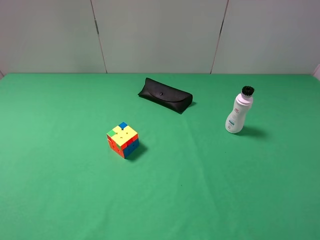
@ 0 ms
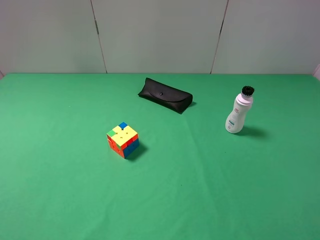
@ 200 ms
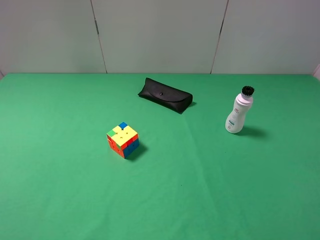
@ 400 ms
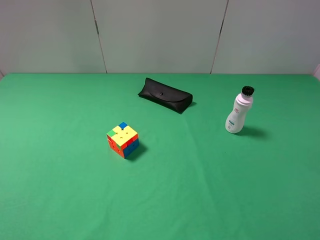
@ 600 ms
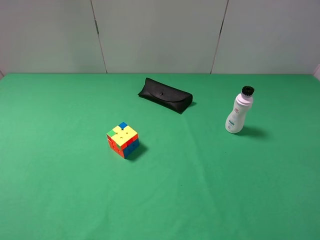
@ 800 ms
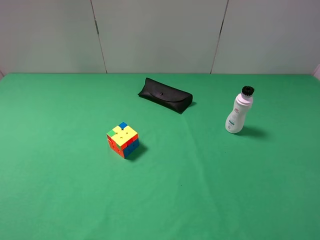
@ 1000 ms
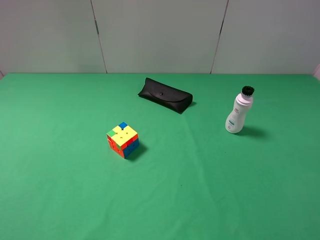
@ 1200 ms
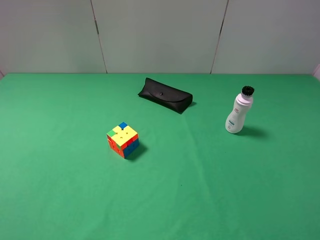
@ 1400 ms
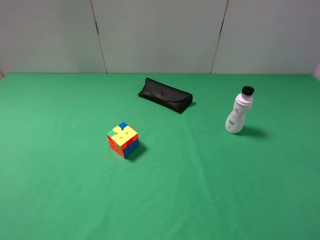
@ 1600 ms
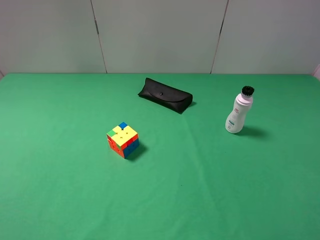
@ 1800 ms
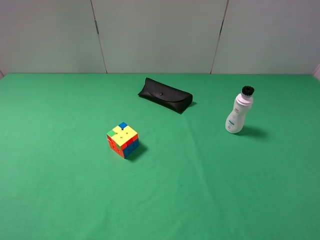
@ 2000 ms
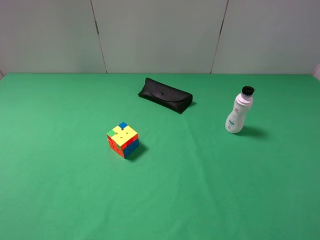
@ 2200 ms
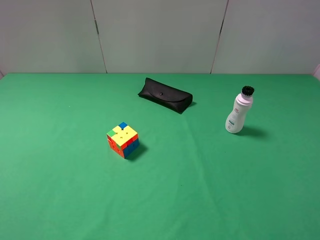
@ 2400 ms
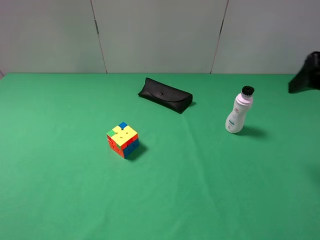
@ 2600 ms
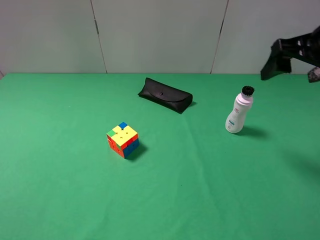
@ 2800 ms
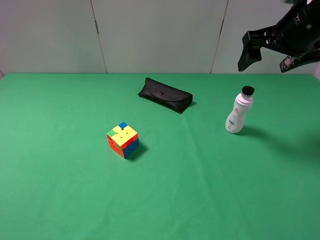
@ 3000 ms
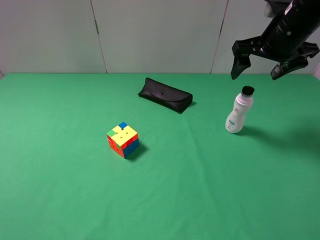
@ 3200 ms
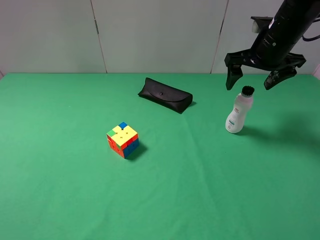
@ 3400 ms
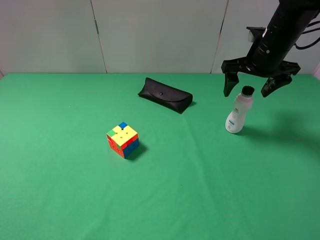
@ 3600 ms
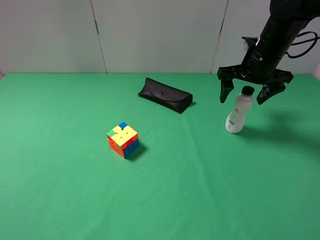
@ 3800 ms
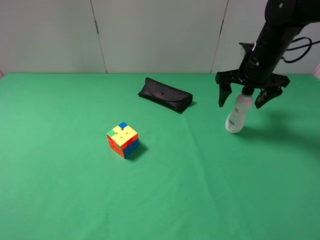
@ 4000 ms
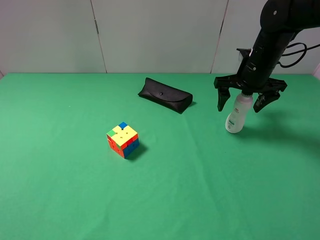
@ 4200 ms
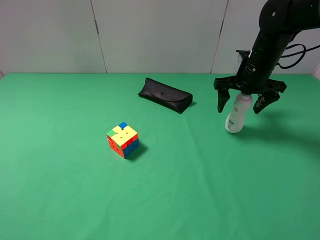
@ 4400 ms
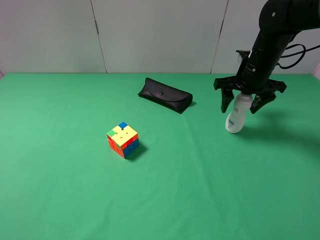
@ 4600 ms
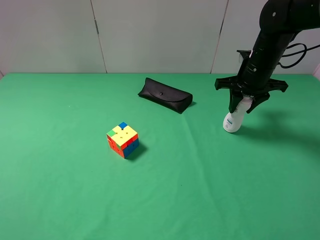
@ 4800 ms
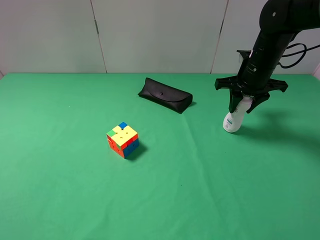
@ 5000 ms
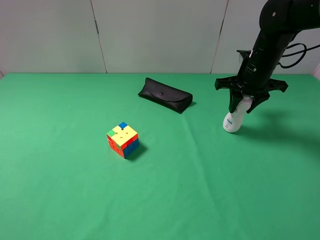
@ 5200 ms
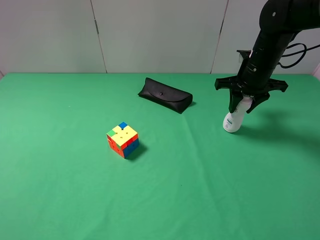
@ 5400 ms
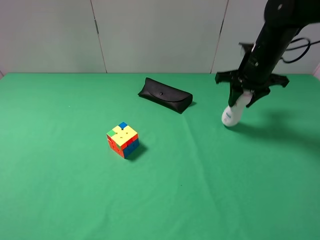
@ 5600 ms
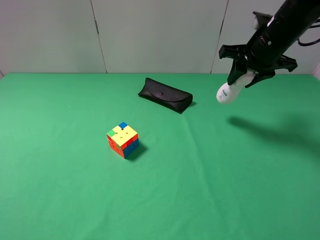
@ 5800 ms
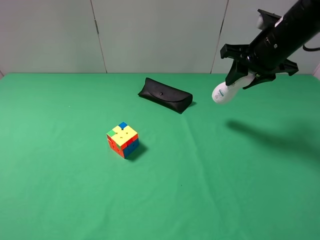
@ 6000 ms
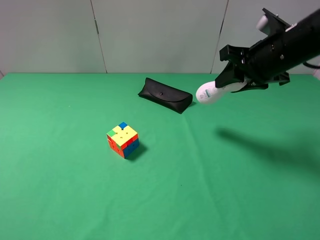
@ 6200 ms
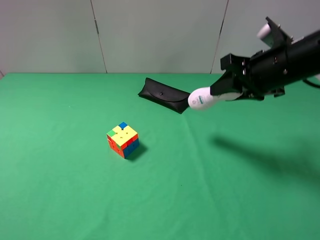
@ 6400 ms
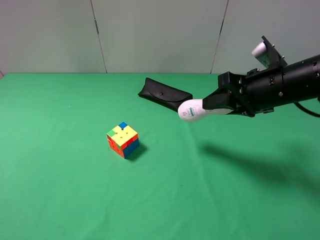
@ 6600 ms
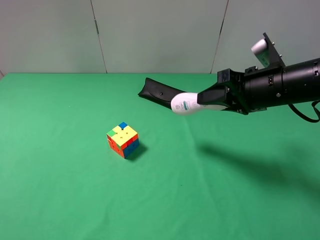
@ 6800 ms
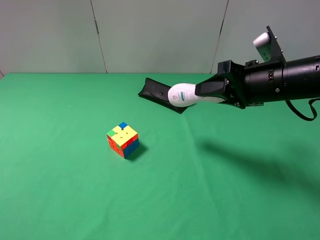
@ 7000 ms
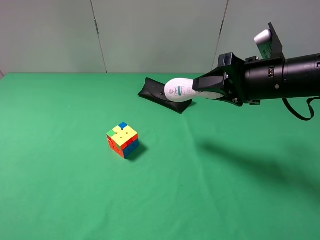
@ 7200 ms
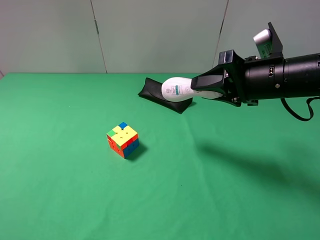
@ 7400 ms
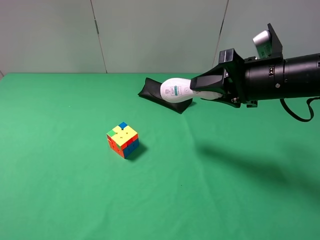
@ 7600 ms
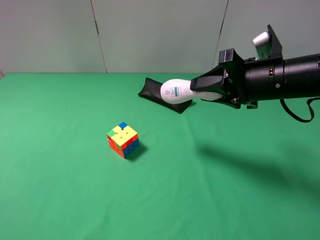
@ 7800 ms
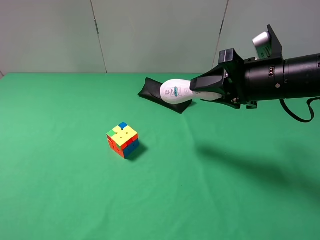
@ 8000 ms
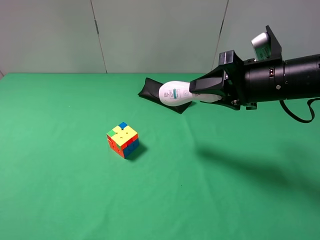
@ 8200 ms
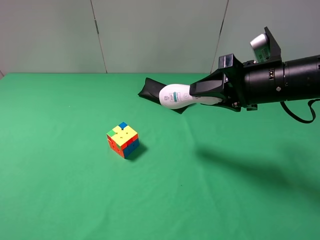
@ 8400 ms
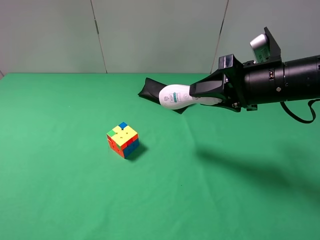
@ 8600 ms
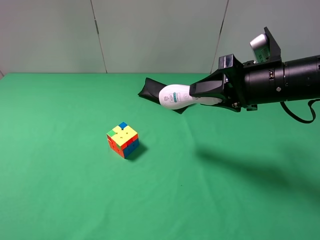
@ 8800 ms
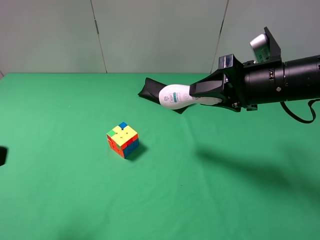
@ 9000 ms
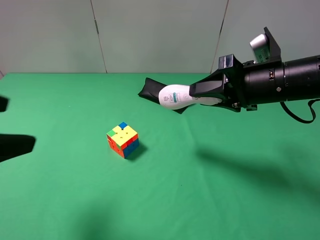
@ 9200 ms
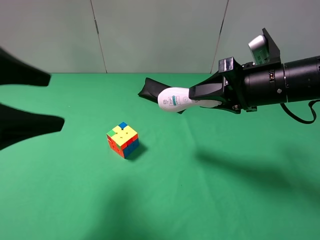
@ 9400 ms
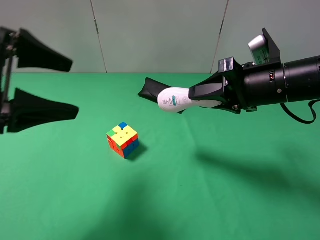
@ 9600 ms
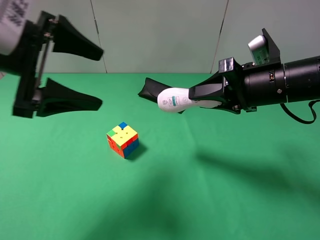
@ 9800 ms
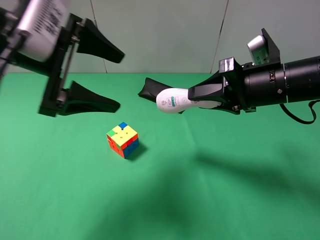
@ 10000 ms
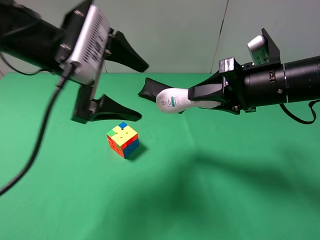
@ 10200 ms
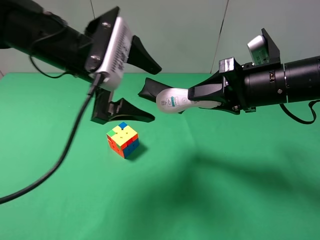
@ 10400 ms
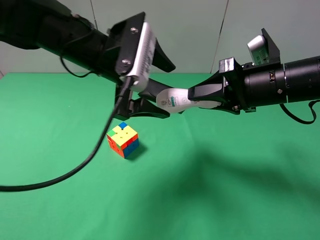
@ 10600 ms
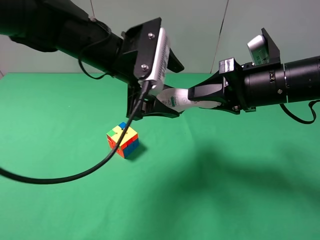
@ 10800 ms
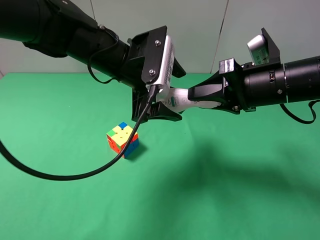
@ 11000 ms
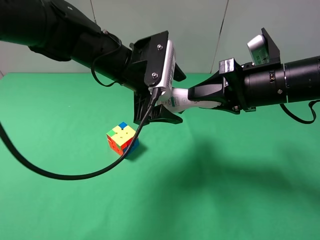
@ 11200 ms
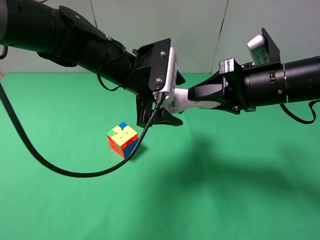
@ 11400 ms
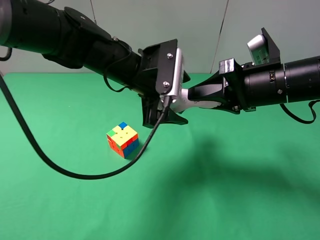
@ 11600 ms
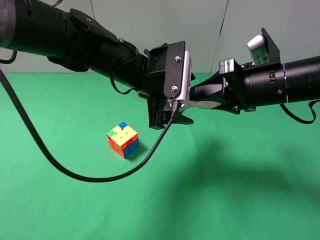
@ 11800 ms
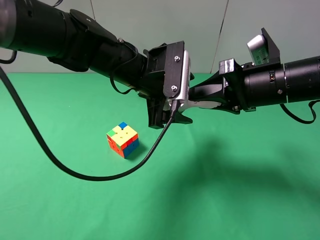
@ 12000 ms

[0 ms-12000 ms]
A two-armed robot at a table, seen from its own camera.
Task of the whole recording: use the right gripper to pick up the item and transfer it from the right gripper to the left gripper.
0 ms to 1600 ms: Both grippers stay put.
1600 ms to 3000 ms: The right gripper moves forward, about 30 cm.
3000 ms to 4400 ms: The right gripper heads downward and forward, covering some 10 cm.
4400 ms to 6000 ms: The right gripper moves upward and backward, approximately 10 cm, and closes its fingers.
6000 ms to 7600 ms: The right gripper travels backward by approximately 10 cm.
7600 ms to 9000 ms: The left gripper goes roughly 10 cm forward.
9000 ms to 10400 ms: The left gripper heads forward and to the right, covering roughly 25 cm.
10400 ms to 12000 ms: The left gripper shifts roughly 5 cm to the right.

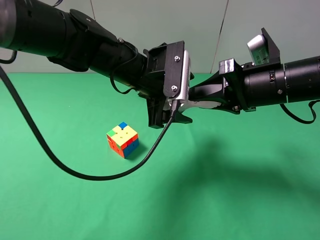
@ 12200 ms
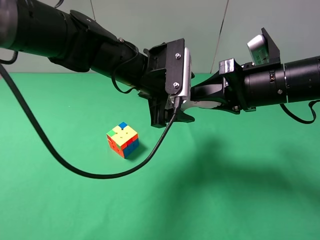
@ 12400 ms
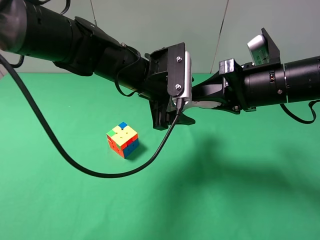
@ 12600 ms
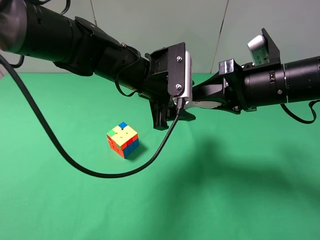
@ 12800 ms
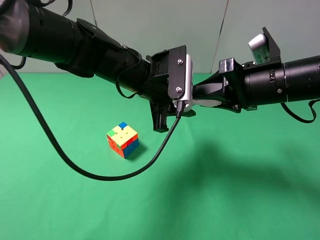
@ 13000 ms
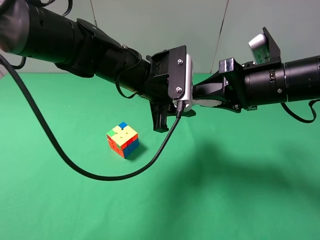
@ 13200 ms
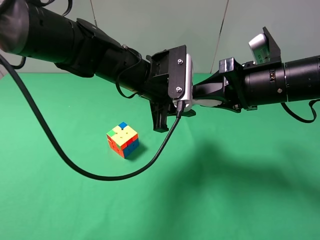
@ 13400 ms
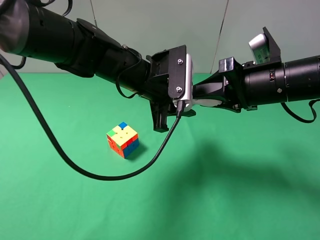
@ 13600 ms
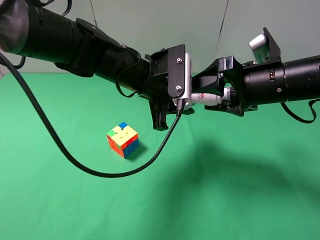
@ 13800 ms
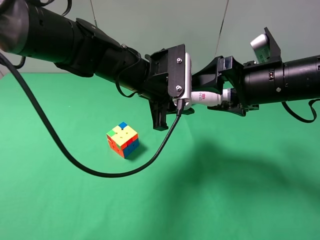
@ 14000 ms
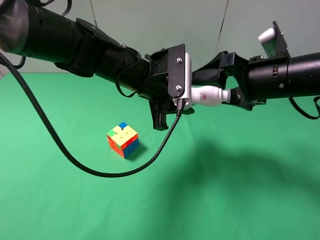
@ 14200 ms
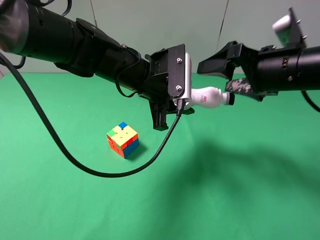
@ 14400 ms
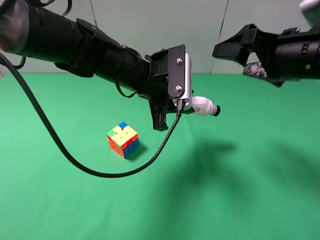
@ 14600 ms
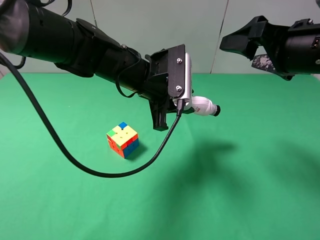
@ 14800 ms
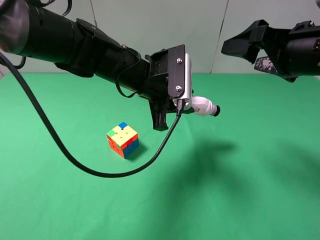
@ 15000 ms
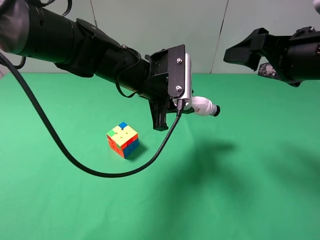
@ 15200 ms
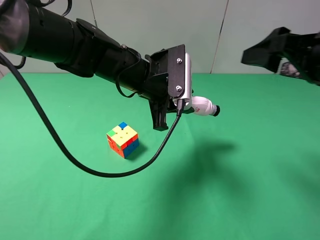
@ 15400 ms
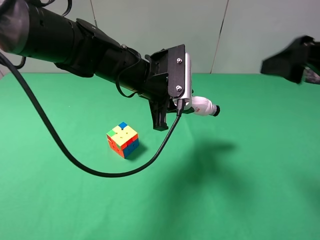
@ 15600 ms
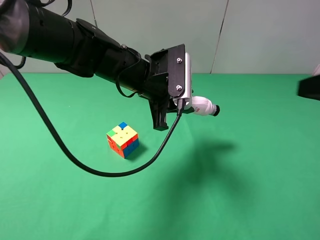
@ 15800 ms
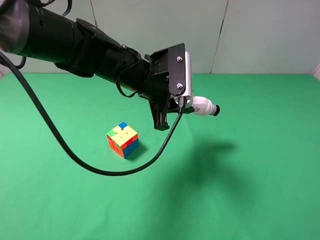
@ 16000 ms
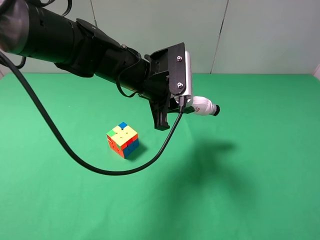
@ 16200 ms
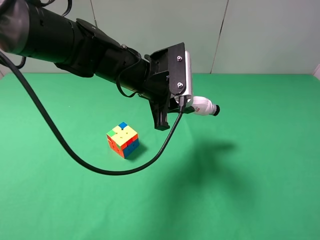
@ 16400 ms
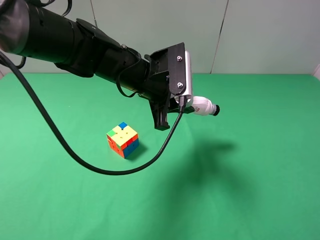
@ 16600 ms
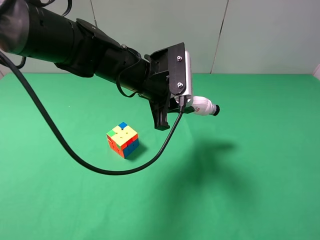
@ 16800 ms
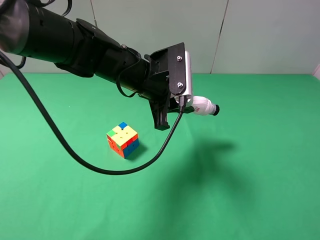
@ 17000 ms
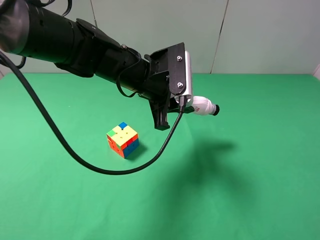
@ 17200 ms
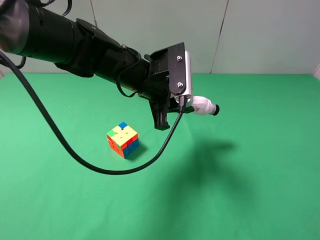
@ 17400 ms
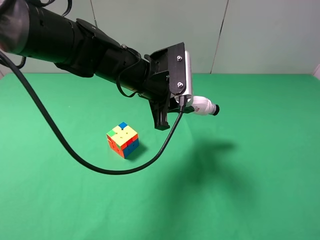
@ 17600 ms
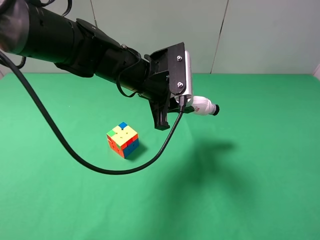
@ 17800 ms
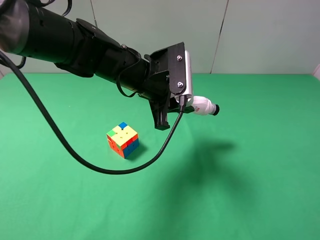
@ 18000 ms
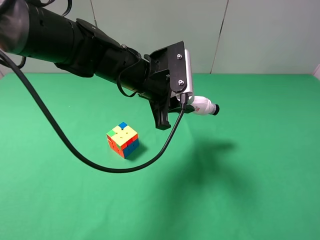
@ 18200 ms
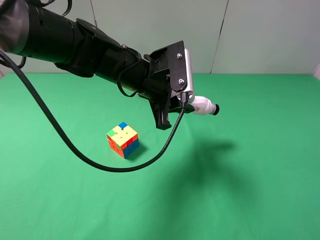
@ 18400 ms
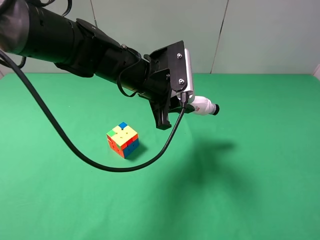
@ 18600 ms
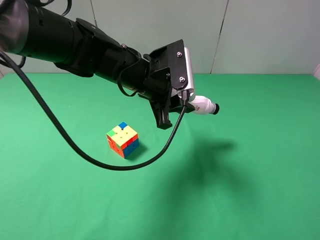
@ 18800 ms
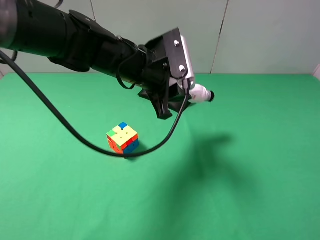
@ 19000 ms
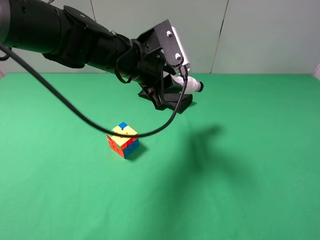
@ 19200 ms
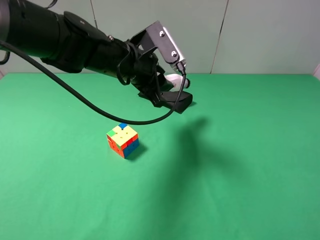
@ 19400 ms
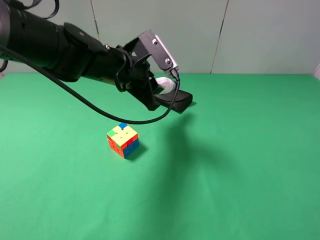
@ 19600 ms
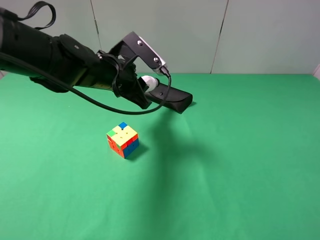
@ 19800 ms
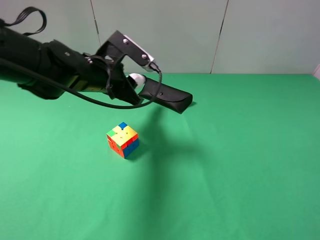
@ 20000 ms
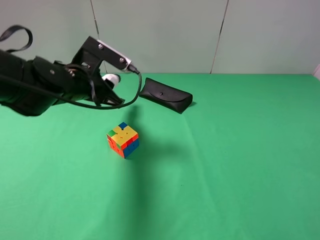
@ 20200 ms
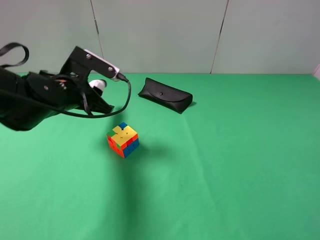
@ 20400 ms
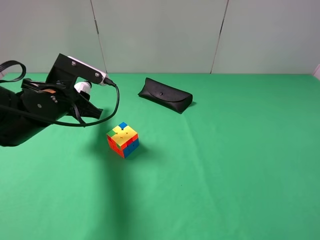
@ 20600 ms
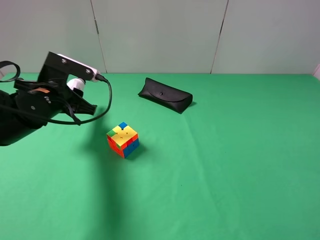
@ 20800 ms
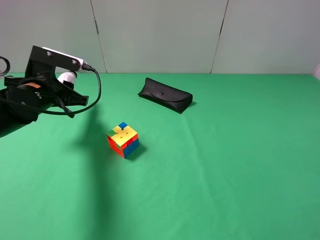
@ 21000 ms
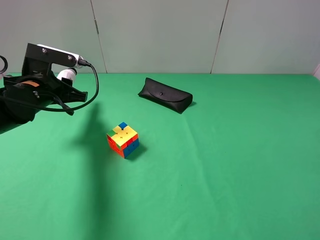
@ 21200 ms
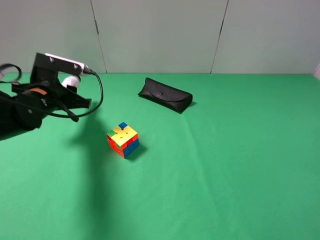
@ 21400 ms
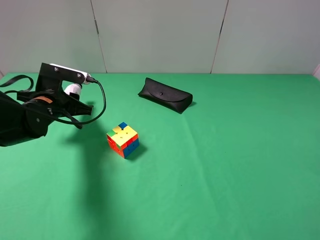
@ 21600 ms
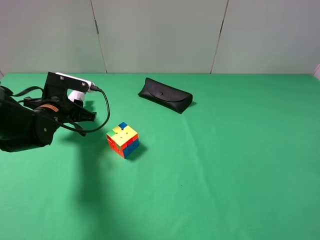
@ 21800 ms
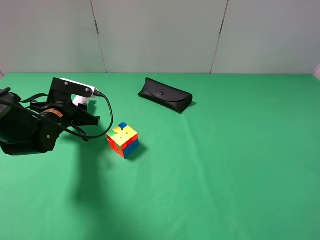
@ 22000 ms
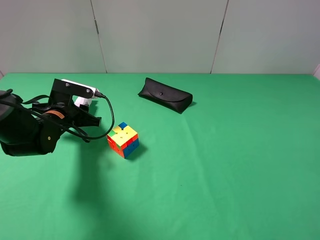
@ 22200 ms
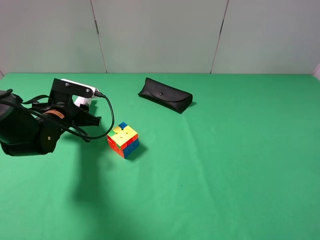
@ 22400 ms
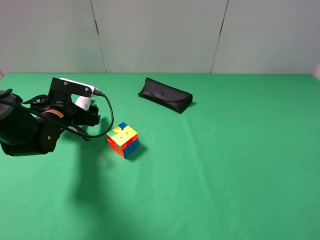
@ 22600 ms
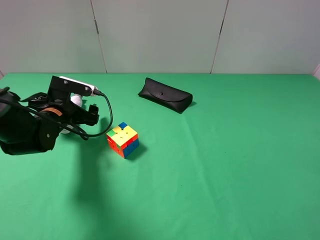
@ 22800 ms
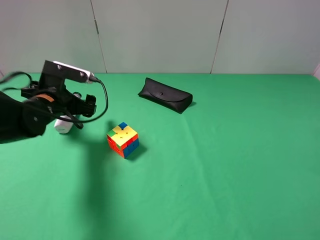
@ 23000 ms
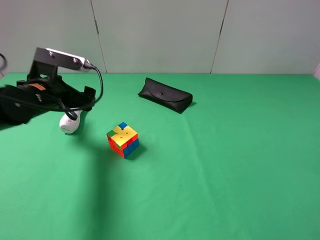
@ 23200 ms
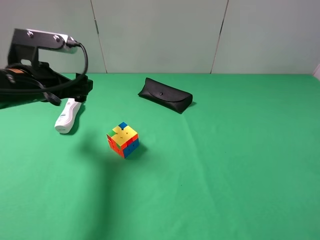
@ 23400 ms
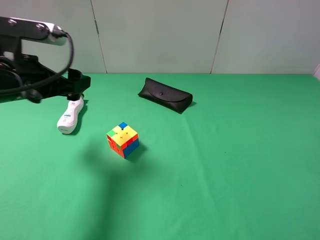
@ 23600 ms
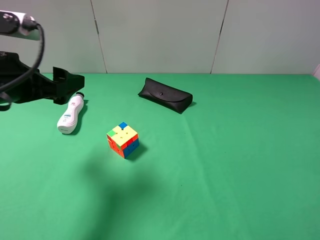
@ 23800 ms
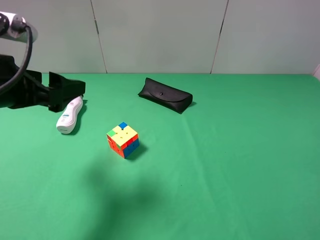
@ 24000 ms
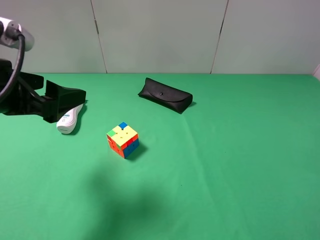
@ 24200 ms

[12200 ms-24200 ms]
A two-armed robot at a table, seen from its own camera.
Task of the whole recording: use the right gripper to pick up the item and transfer it from the right gripper to the left gripper.
Step, 14200 ms to 23200 ms: The left gripper places shampoo on the left side of the table.
12200 ms to 13800 ms: The right gripper opens. The left gripper closes up.
13800 ms to 15200 ms: The right gripper moves upward, some 5 cm.
15200 ms to 16600 ms: The right gripper shifts about 20 cm backward.
16600 ms to 18200 ms: The grippers move only a little.
18200 ms to 19800 ms: The left gripper moves to the left, approximately 5 cm.
19800 ms to 21200 ms: The left gripper goes some 10 cm to the left.
21200 ms to 22600 ms: The left gripper moves downward, about 10 cm, and opens up.
22600 ms to 24200 ms: The left gripper heads upward and backward, covering roughly 20 cm.
